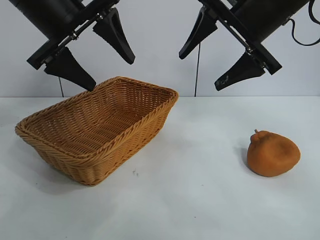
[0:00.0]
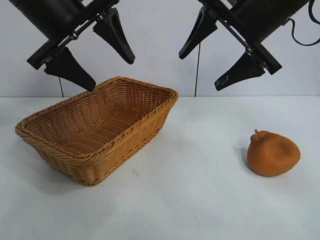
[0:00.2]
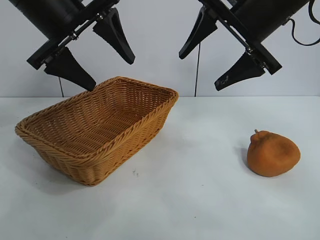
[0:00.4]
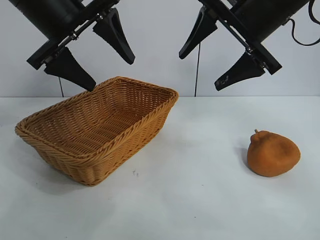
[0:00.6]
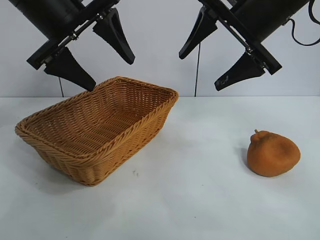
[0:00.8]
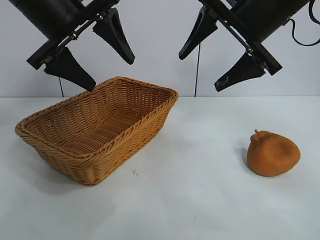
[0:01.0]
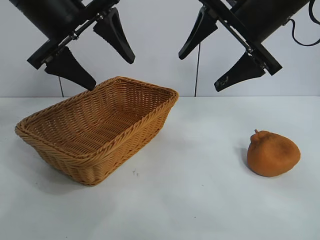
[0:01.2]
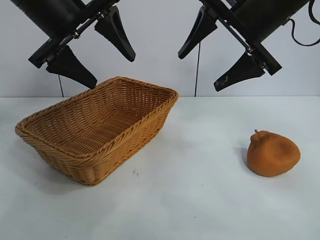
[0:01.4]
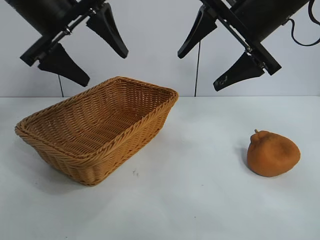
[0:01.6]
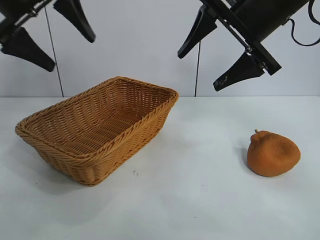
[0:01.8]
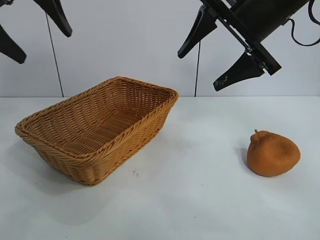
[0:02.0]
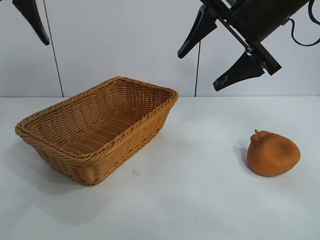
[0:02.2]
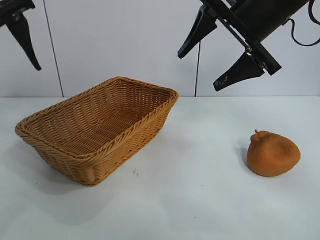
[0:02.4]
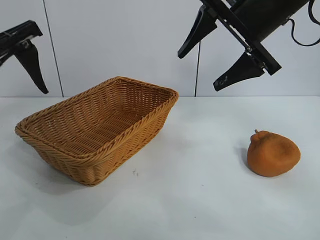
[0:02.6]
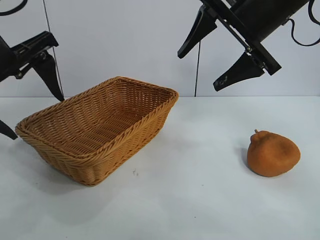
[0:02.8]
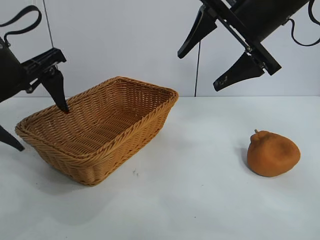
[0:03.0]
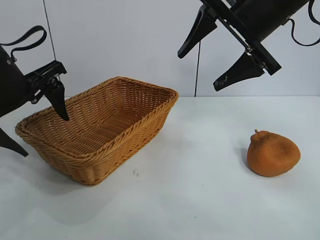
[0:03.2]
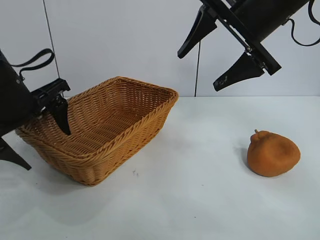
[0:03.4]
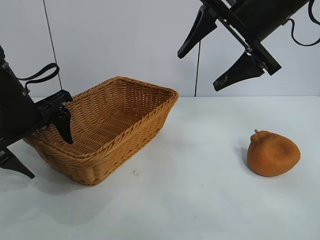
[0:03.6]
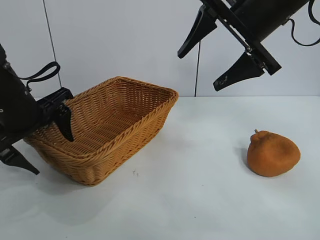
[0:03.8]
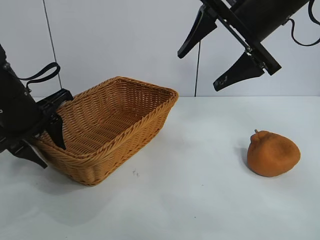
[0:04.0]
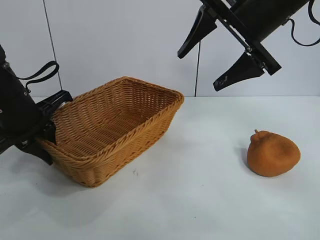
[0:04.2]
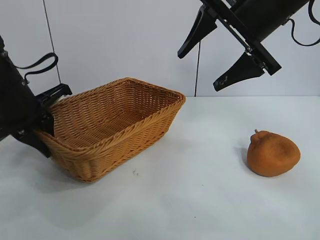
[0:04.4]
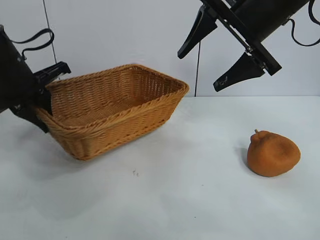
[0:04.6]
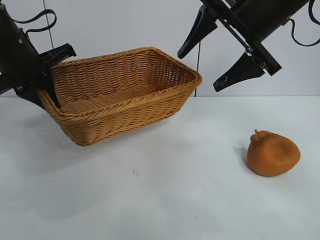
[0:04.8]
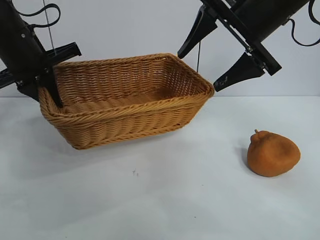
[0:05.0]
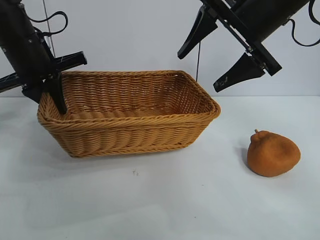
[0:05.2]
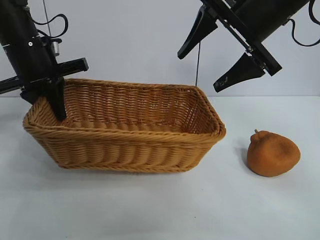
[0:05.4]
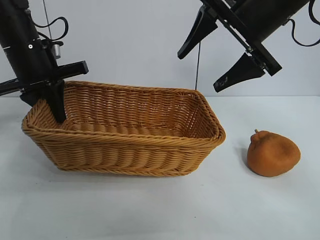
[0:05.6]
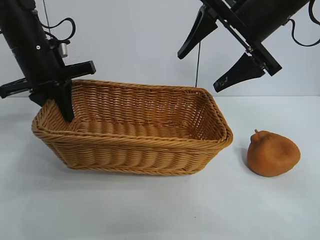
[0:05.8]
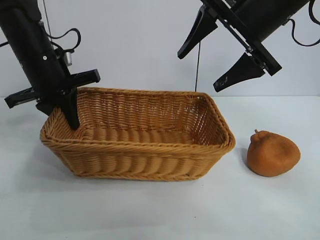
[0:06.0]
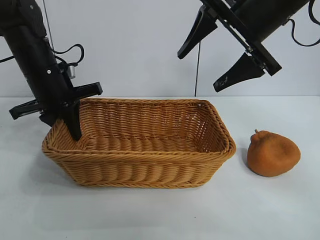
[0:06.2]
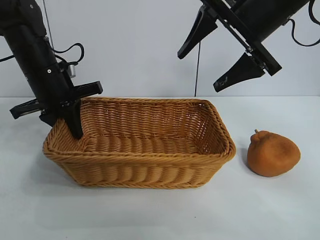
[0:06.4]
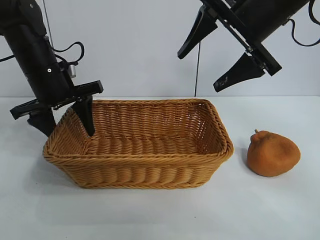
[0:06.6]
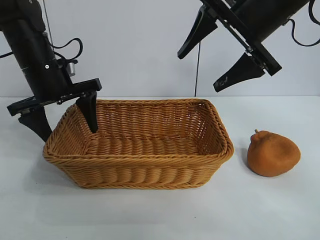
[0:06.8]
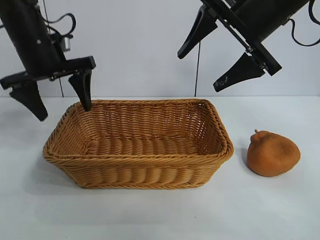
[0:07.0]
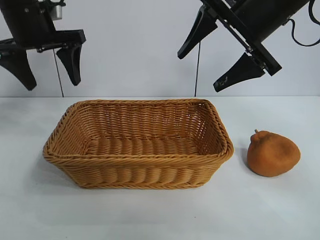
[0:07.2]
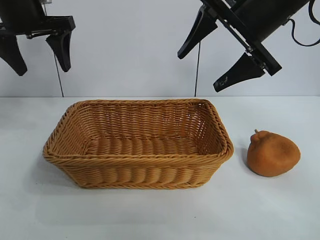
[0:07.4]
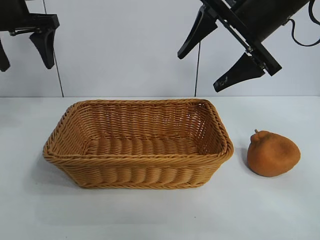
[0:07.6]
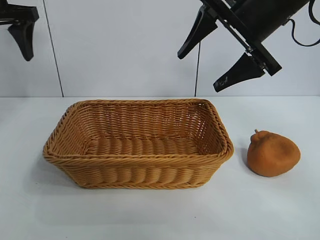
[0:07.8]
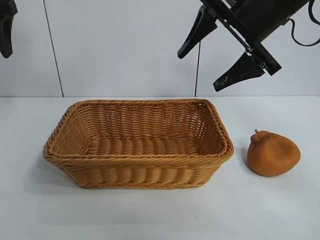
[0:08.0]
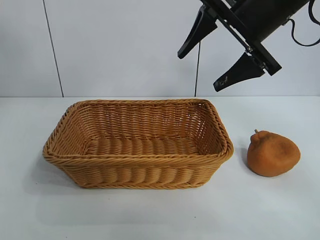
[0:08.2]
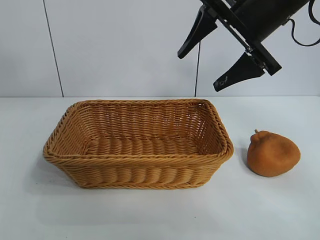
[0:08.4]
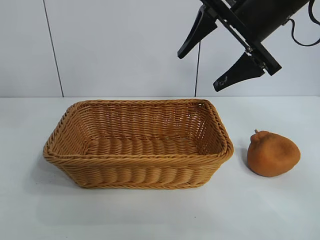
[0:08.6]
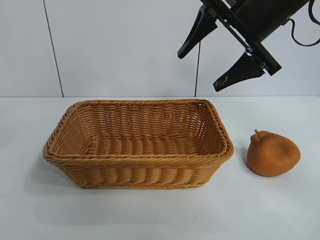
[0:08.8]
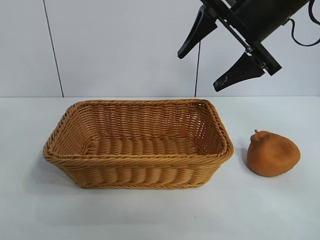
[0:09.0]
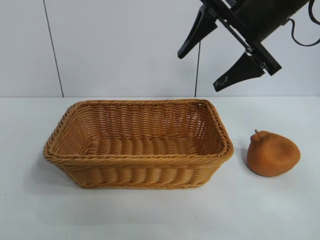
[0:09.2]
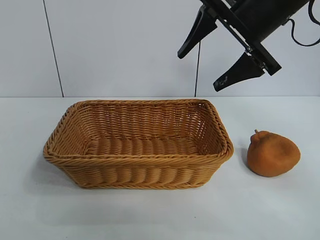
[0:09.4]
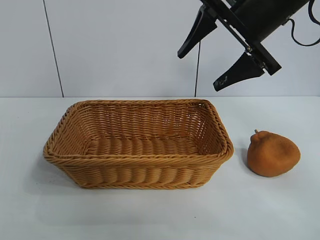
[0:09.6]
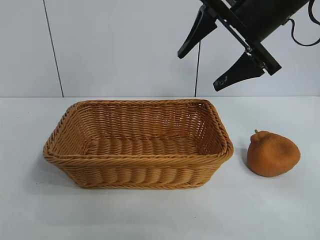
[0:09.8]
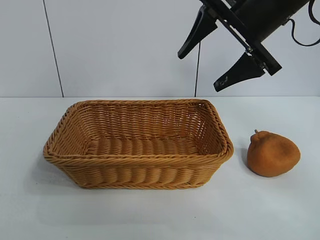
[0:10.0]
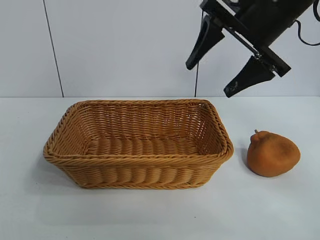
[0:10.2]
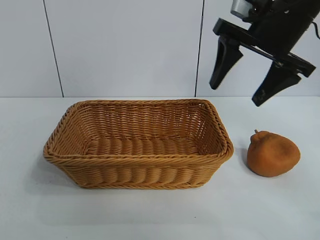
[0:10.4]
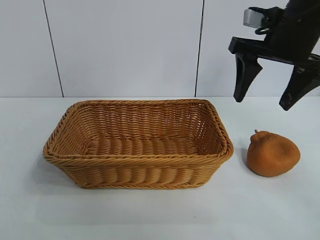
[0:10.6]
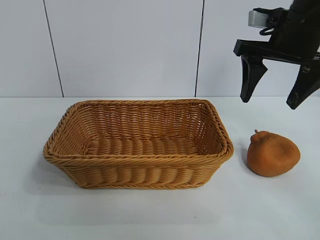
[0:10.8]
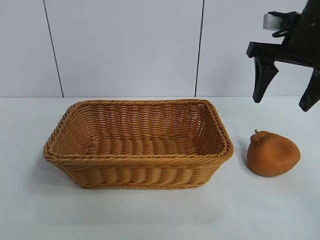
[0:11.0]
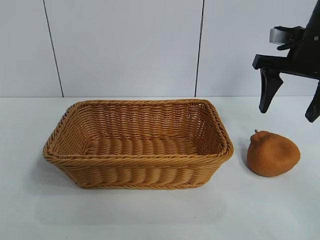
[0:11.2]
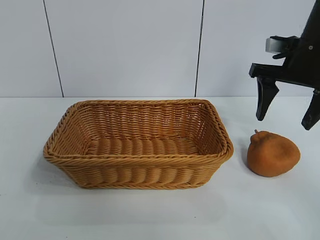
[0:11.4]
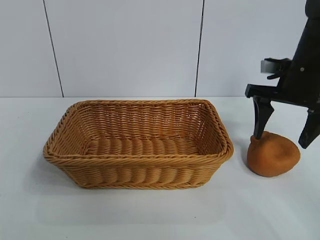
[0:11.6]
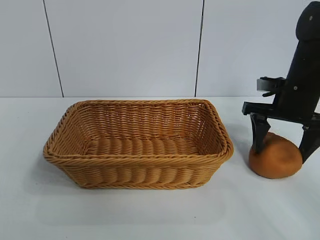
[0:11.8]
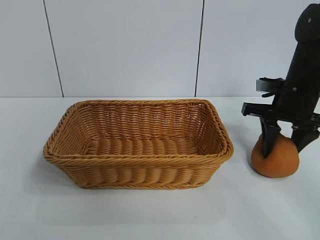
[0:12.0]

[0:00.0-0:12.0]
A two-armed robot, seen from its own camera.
Task of the whole recording: pick up the orange and put it into the basket.
Step, 0:00.6 to 0:04.0: Grasp the basket with left gripper.
Step, 0:04.2 to 0:06.8: Place the basket in the center of view with left gripper.
Step, 0:07.0 to 0:12.0: Grasp the orange with right gripper.

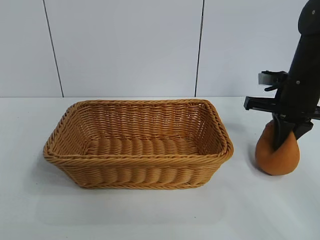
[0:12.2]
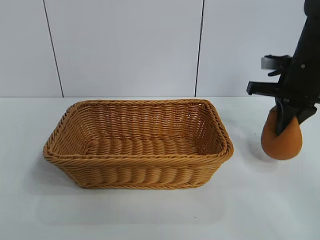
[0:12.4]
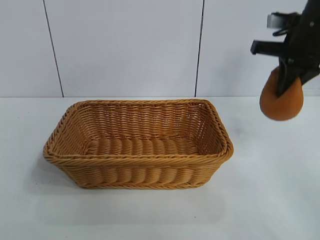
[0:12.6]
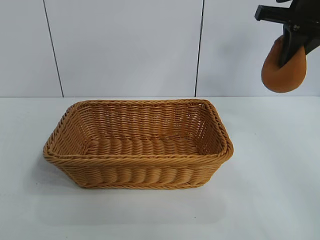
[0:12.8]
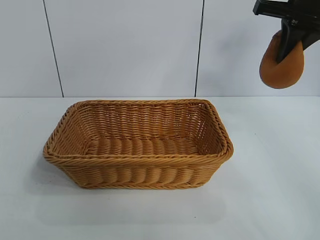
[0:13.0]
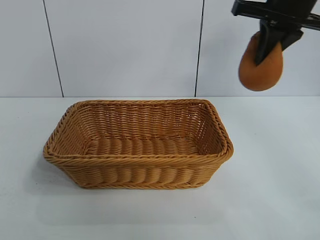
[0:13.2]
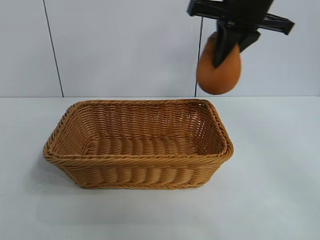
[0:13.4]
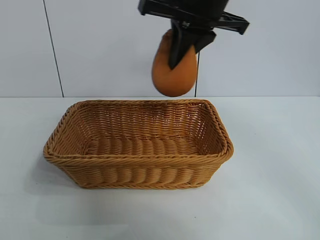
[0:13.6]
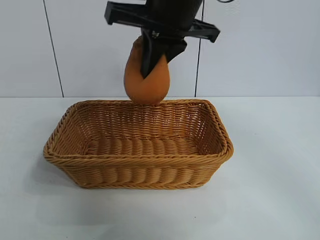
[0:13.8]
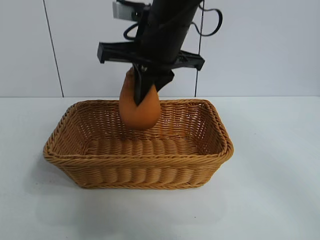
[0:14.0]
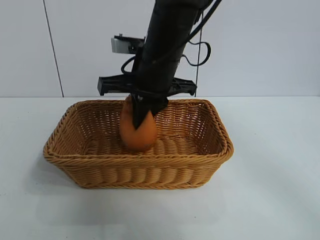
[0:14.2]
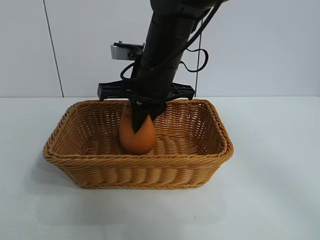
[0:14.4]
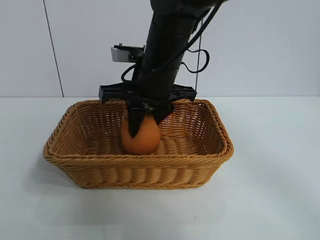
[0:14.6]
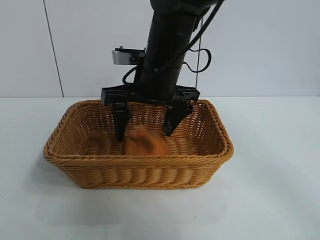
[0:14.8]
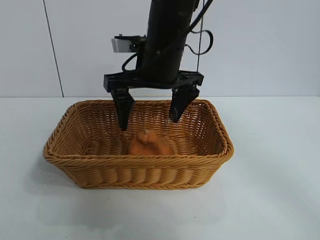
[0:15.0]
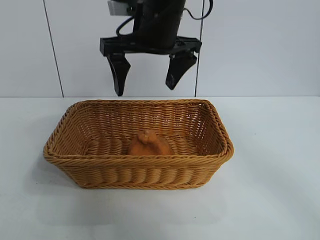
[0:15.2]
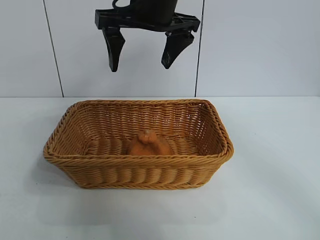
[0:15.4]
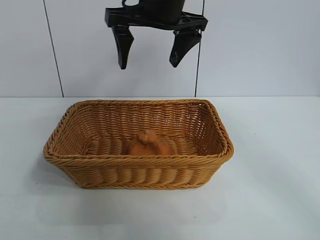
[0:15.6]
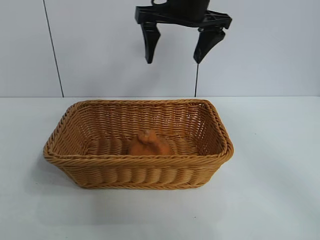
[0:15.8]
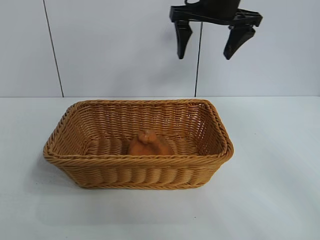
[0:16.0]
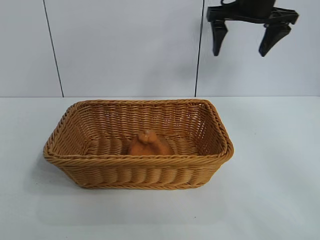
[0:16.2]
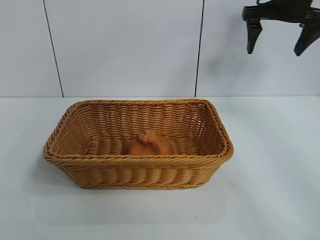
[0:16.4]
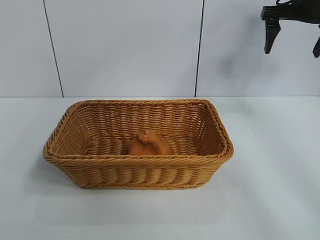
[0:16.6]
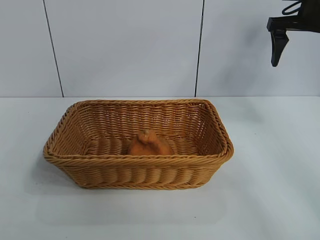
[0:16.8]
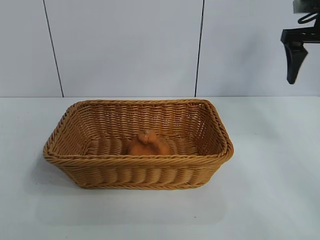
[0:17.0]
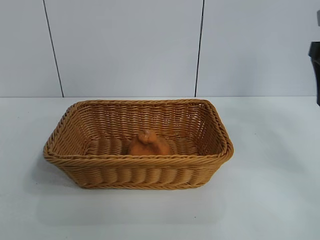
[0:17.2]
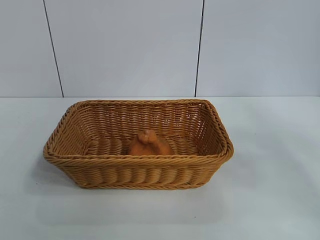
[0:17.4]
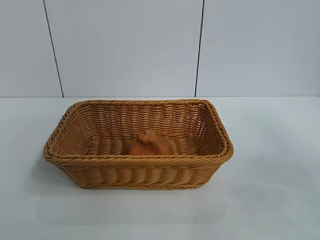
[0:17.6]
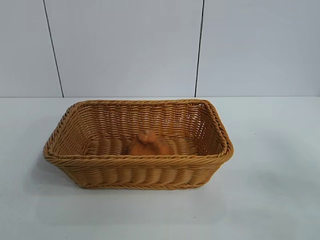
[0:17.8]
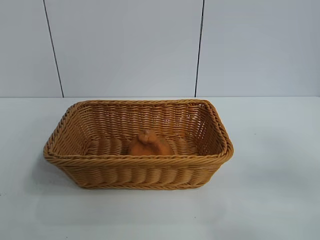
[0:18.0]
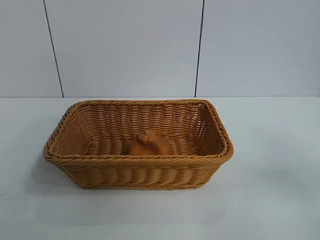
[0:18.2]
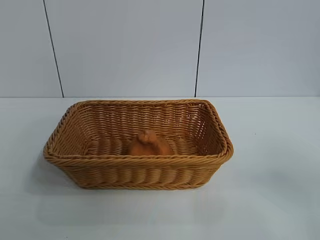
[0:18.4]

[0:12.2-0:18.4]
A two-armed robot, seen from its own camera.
Task of the whole recording: pick up the orange and put it into the basket.
Step, 0:12.2 to 0:14.8: Place the orange in the basket with right gripper.

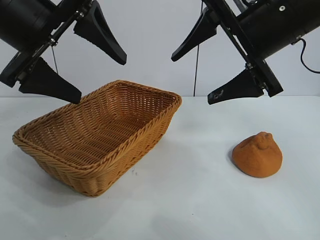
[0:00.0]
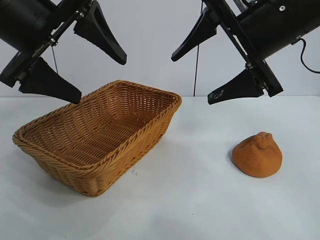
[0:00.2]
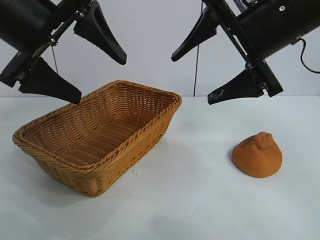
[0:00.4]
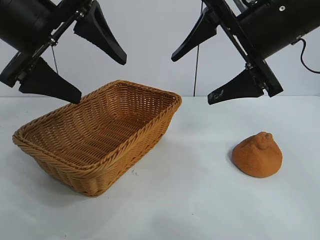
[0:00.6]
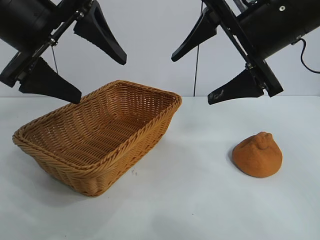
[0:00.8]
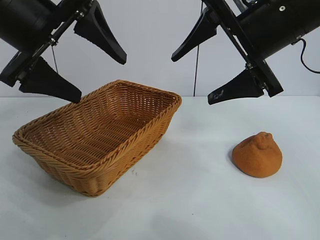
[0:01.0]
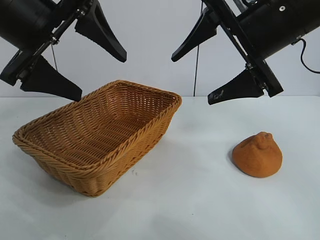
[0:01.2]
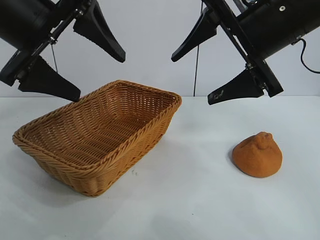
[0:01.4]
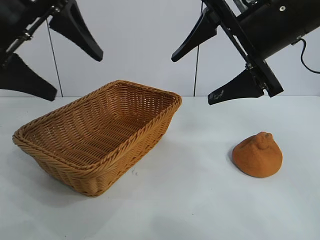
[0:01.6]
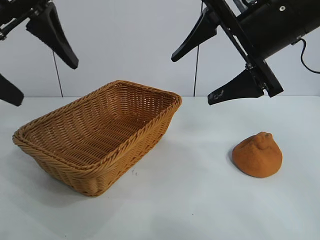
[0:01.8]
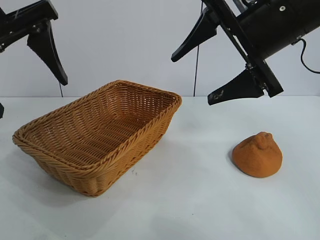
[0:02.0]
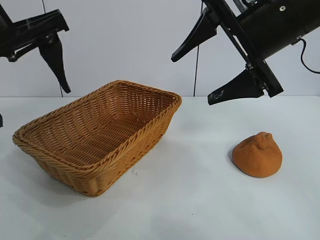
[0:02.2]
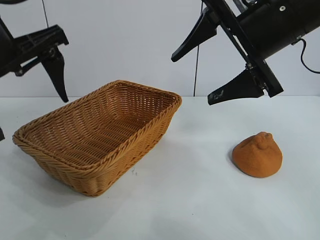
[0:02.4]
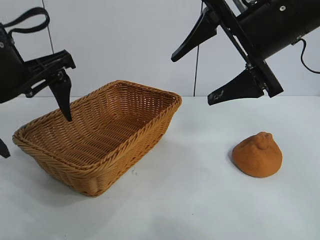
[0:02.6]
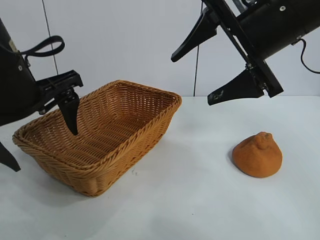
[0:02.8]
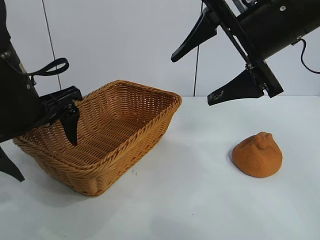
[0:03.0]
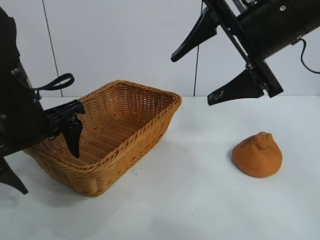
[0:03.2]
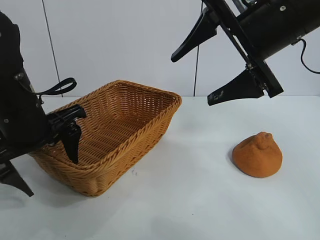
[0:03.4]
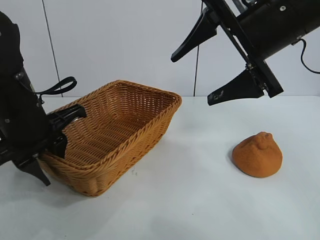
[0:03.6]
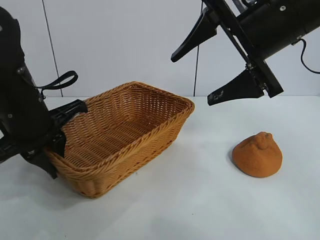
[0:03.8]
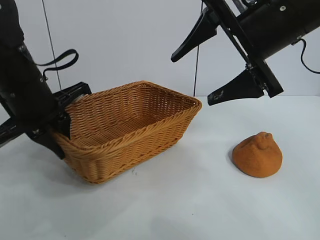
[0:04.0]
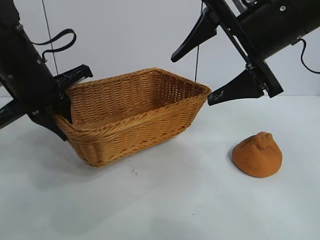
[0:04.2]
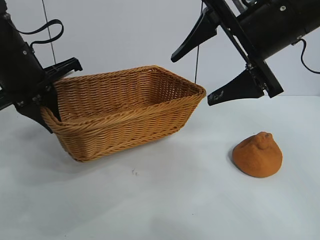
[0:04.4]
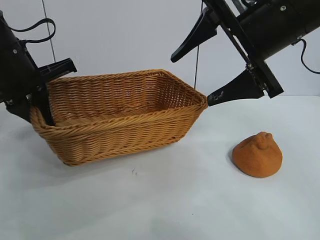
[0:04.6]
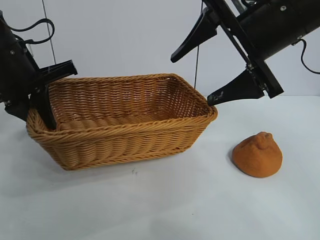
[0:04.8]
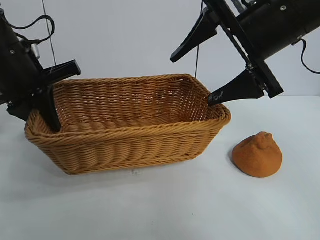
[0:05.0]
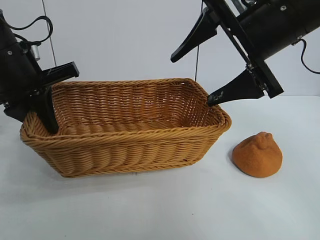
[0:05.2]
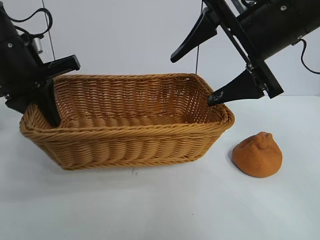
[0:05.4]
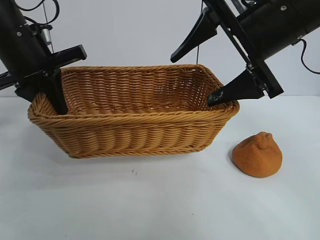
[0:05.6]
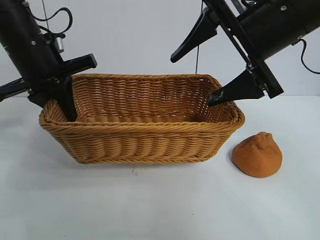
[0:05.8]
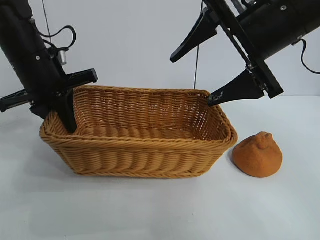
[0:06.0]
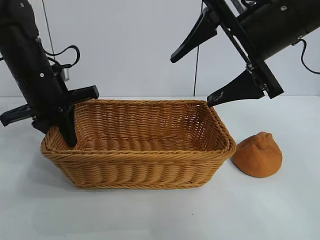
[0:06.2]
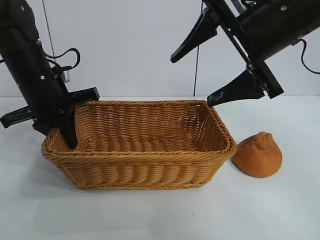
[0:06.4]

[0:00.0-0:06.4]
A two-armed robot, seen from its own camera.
Task of the whole recording: pick up the orange and put it into the basket.
Step, 0:01.0 to 0:03.6: Grasp the basket with left gripper.
